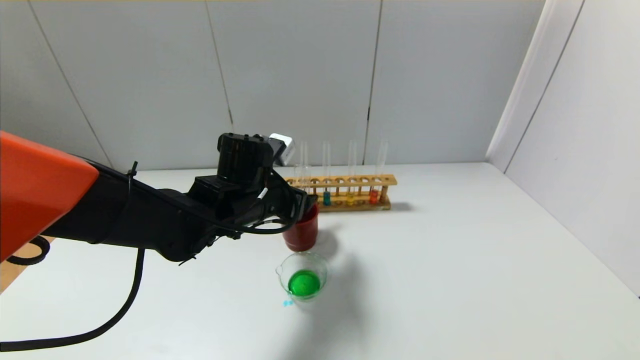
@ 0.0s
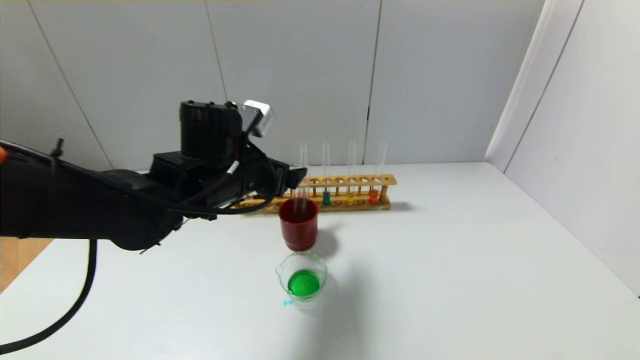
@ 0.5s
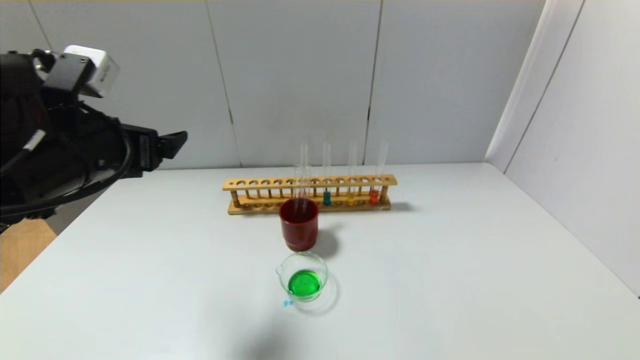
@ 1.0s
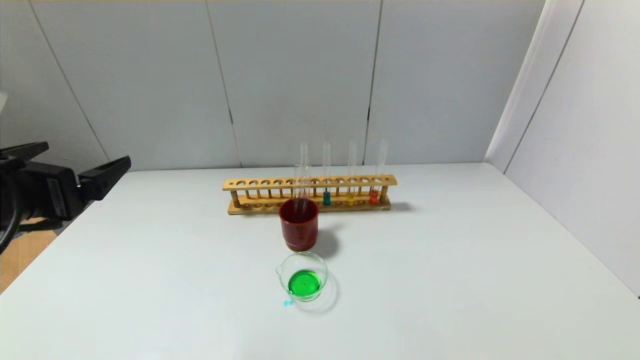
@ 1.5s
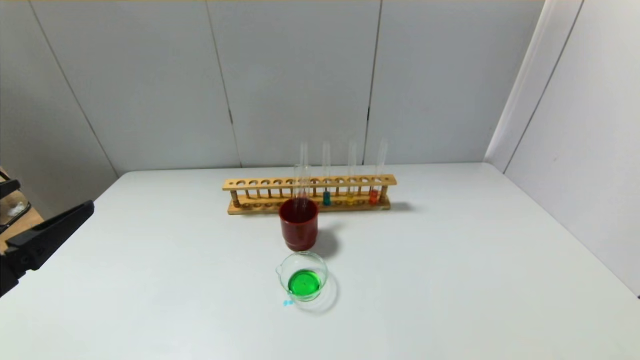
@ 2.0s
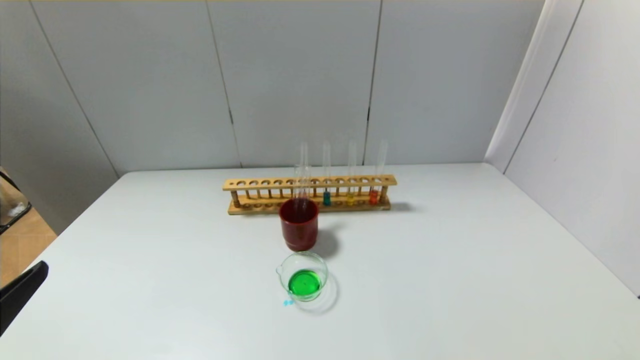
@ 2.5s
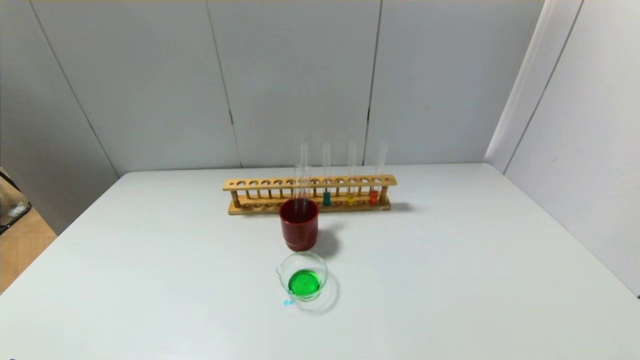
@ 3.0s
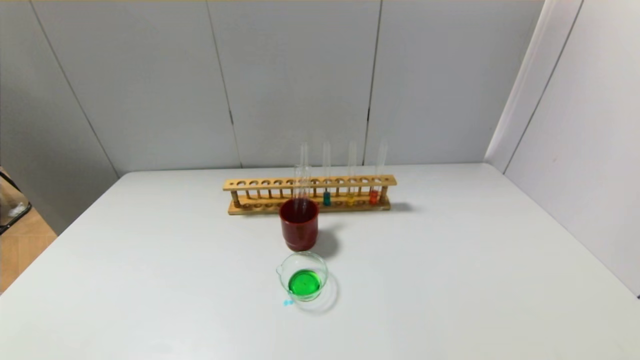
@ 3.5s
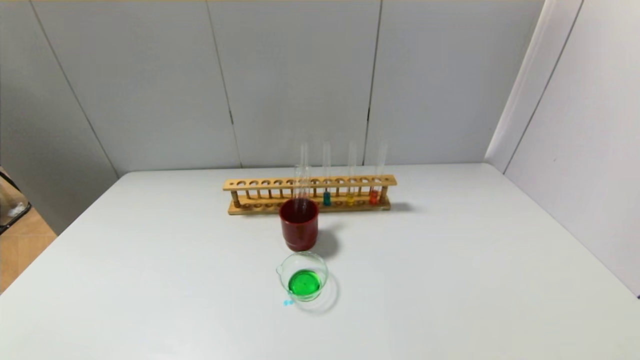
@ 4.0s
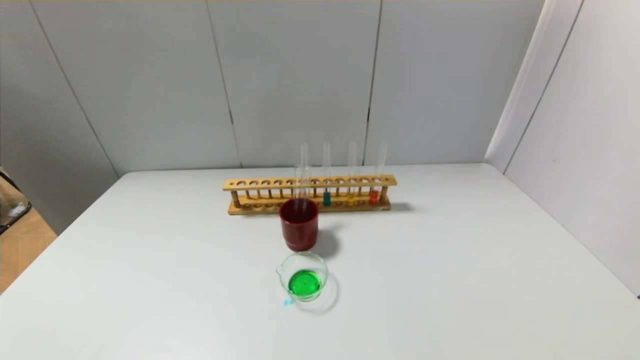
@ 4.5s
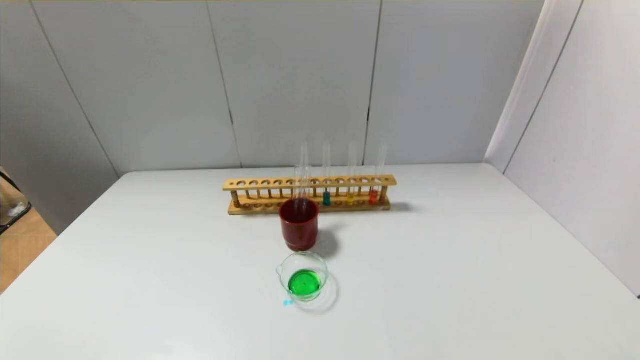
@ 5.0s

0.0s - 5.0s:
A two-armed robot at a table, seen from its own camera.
0.0s - 2.5s: The left gripper travels backward and to the left by roughly 35 cm.
2.5s - 5.0s: The left gripper heads downward, covering roughly 15 cm.

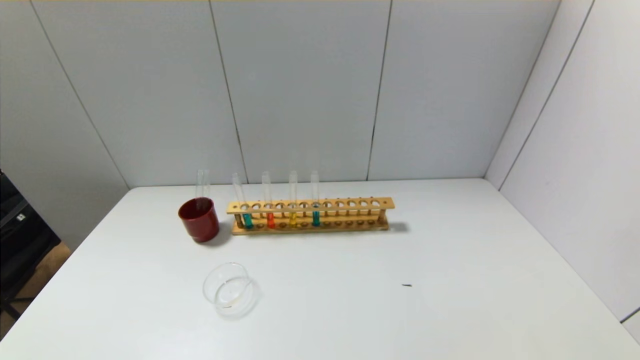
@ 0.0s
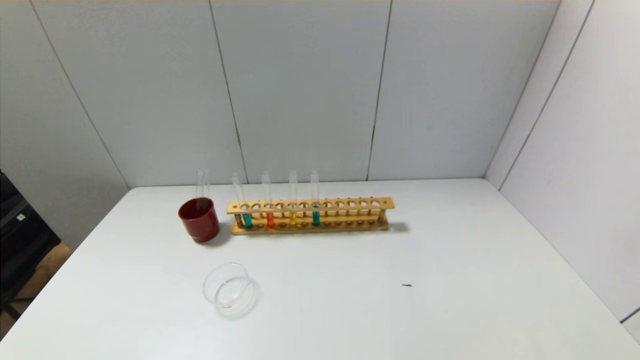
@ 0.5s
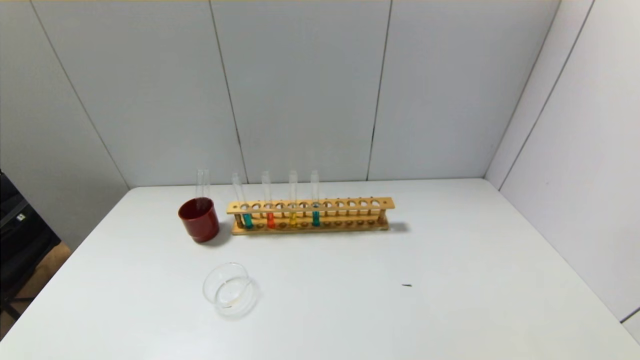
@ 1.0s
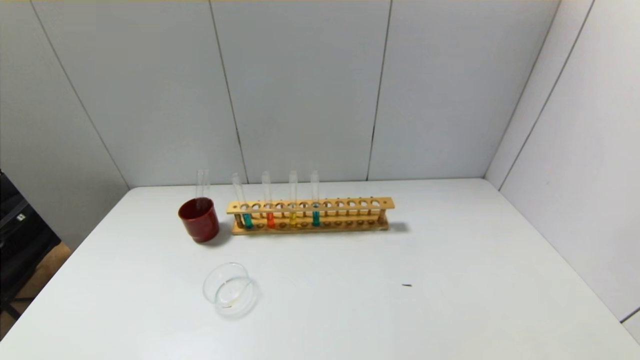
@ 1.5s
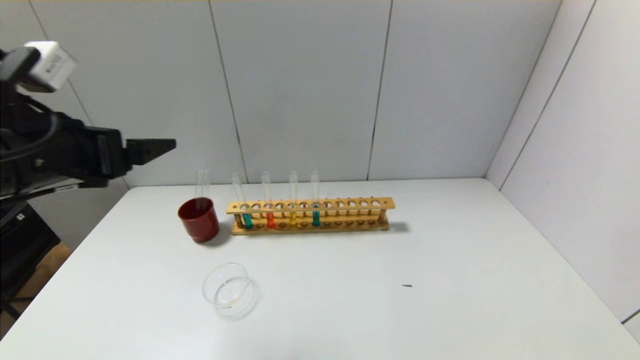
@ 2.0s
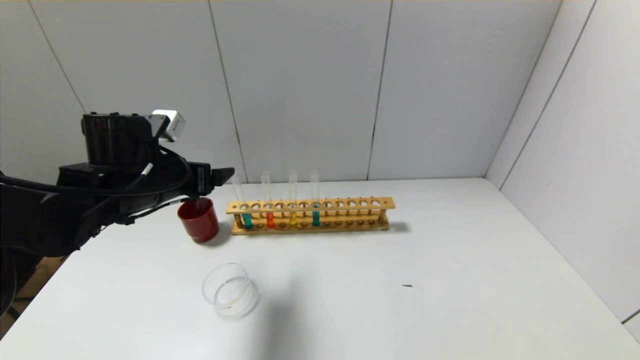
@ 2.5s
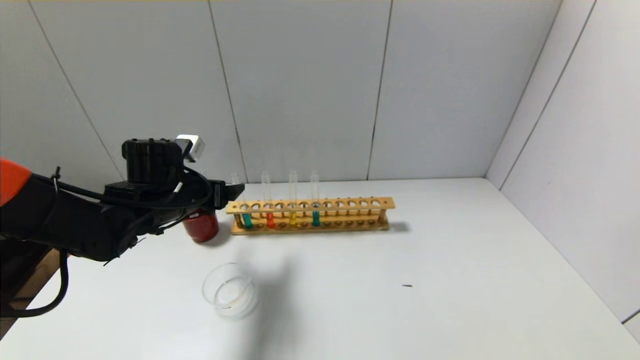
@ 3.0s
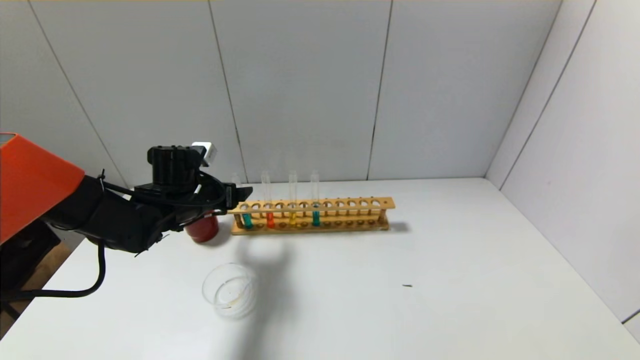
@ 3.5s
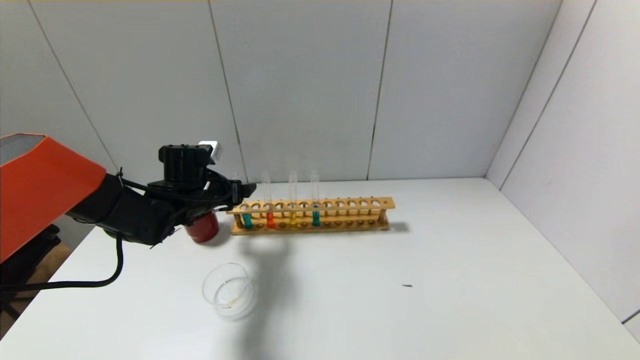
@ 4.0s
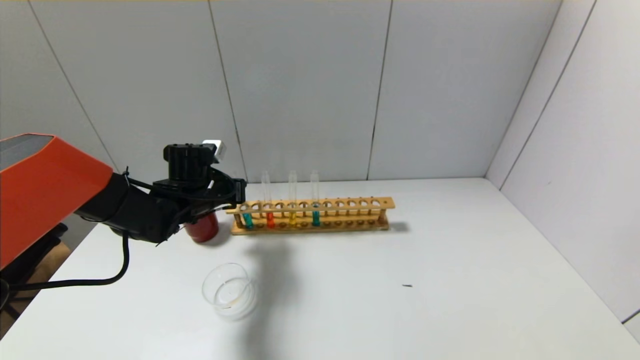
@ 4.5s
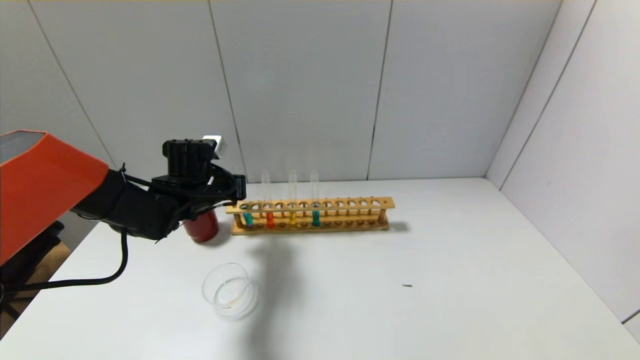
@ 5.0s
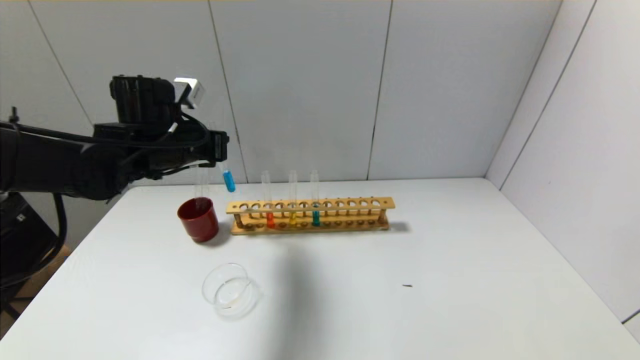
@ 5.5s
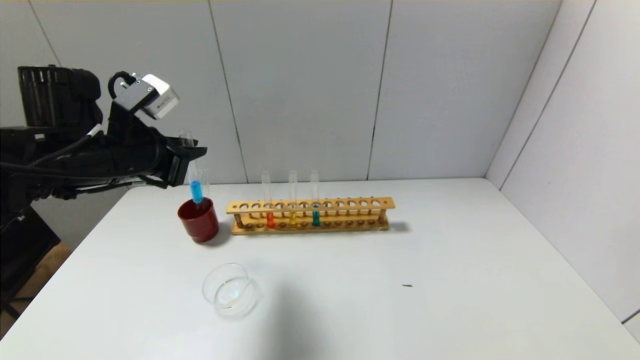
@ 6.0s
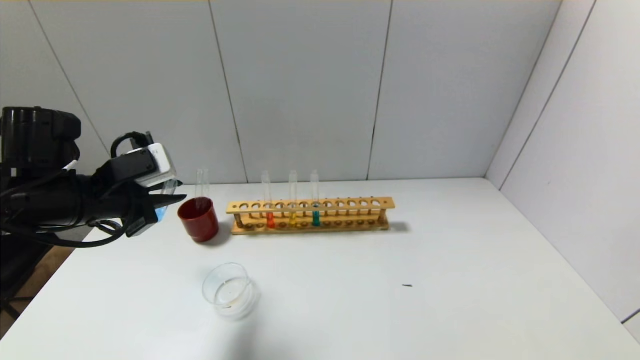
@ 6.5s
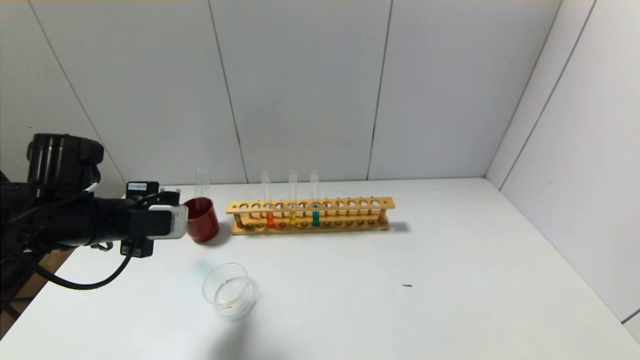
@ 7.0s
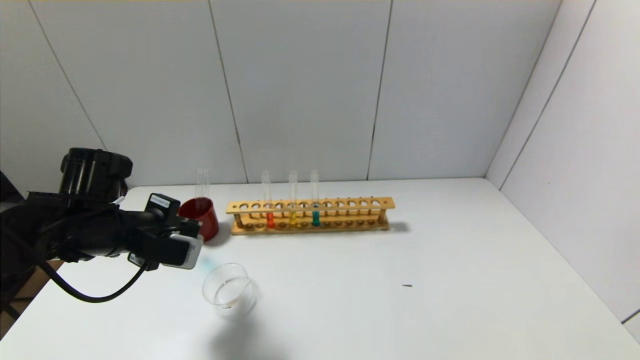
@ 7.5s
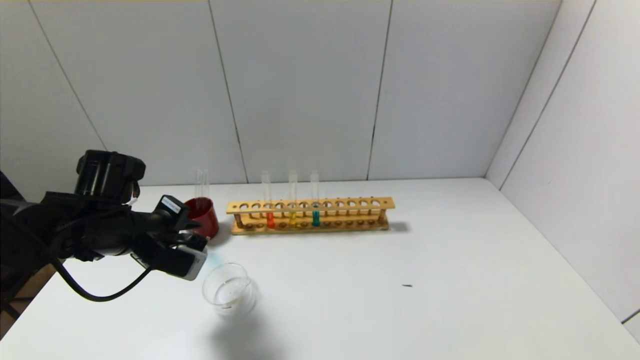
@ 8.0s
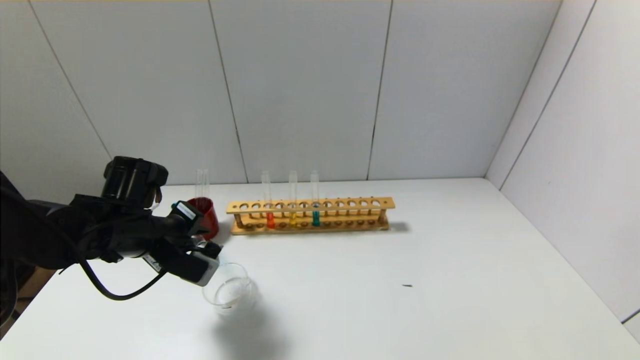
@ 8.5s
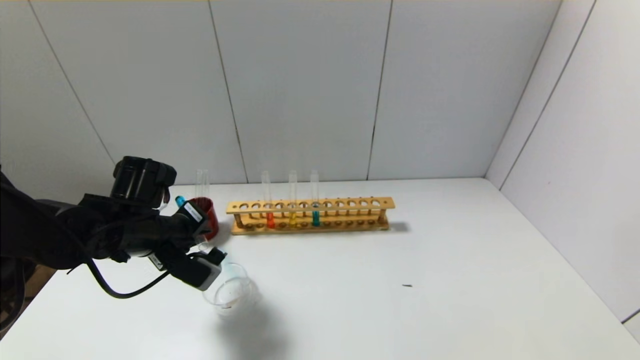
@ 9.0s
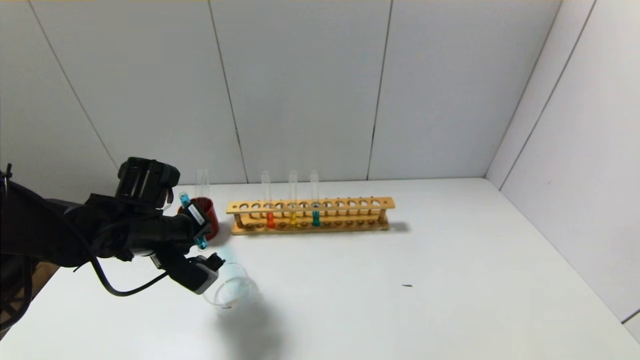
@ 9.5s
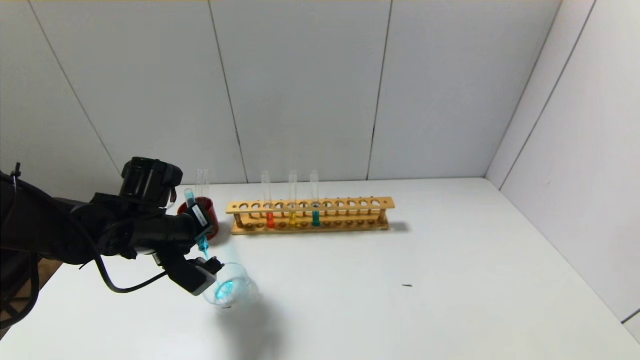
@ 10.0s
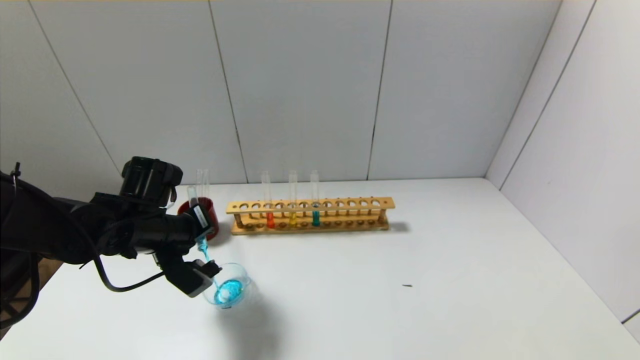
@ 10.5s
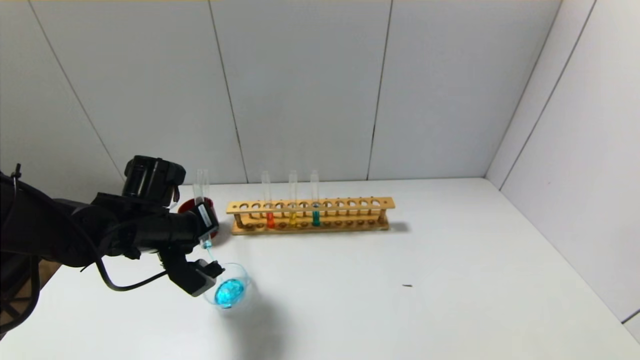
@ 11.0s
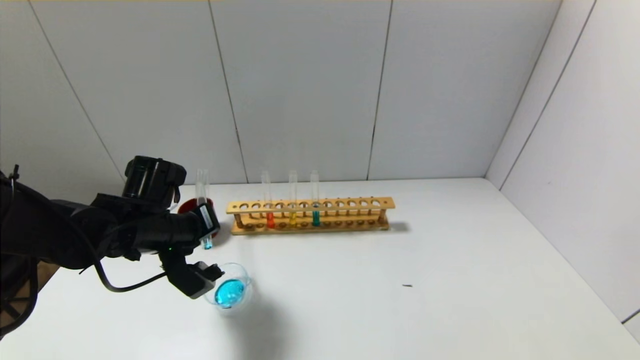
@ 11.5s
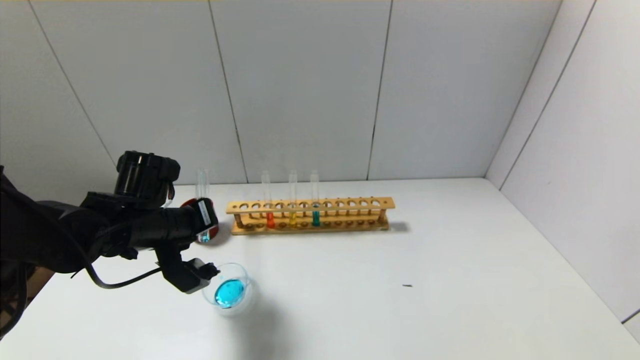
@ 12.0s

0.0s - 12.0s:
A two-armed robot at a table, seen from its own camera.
Step, 0.0s - 4.5s: Grasp the blue reagent with the left gripper.
0.0s - 2.0s: The left gripper is displaced forward and upward by roughly 30 cm.
2.0s - 4.0s: The left gripper travels forward and downward by roughly 25 cm.
4.0s - 6.0s: The left gripper goes about 15 cm upward and backward, and closes its fingers.
6.0s - 8.0s: The left gripper travels downward by some 10 cm.
10.0s - 12.0s: The grippers make only small movements.

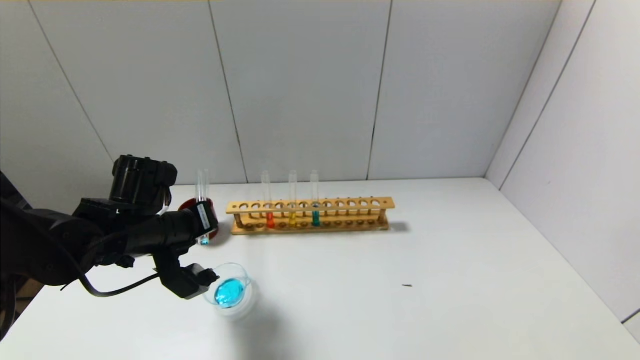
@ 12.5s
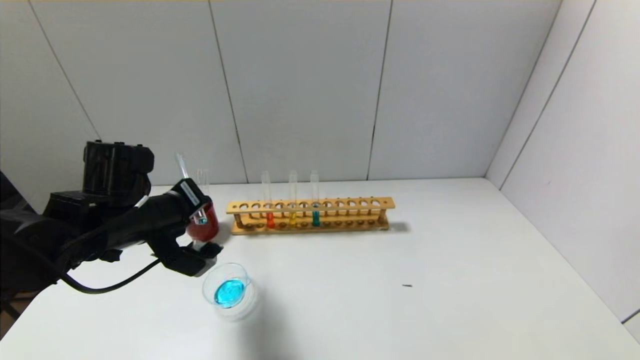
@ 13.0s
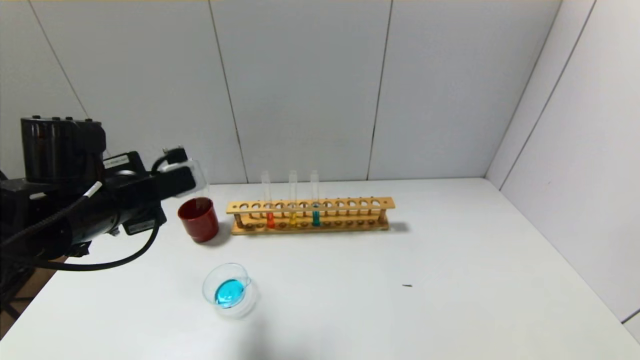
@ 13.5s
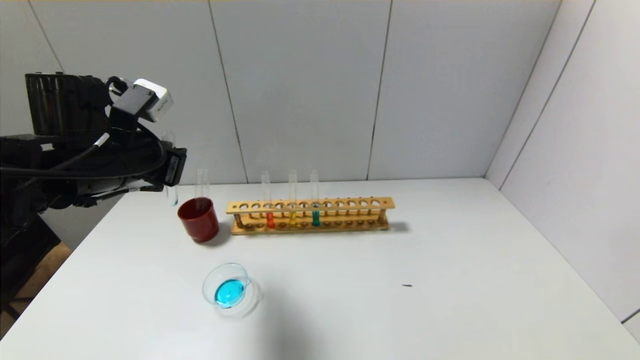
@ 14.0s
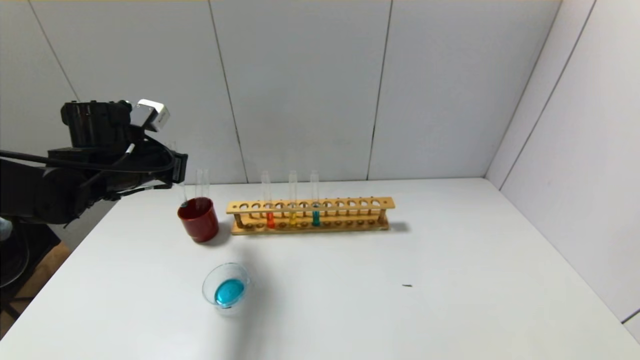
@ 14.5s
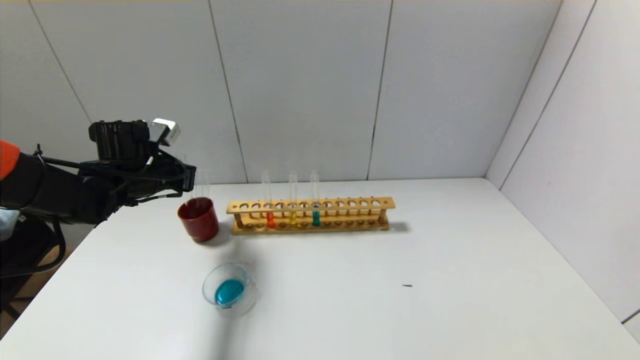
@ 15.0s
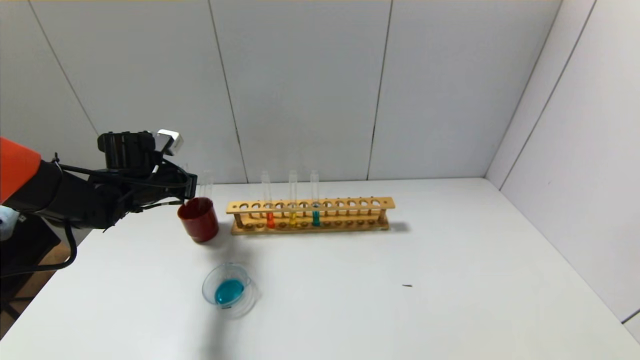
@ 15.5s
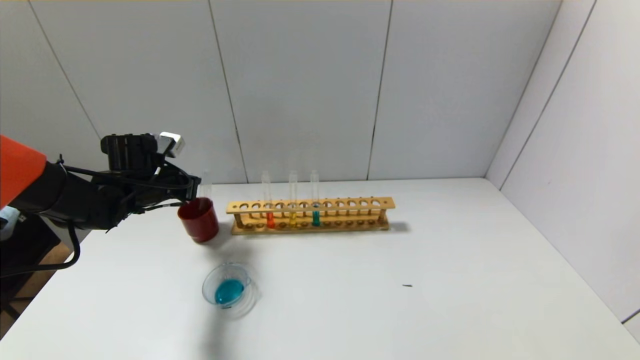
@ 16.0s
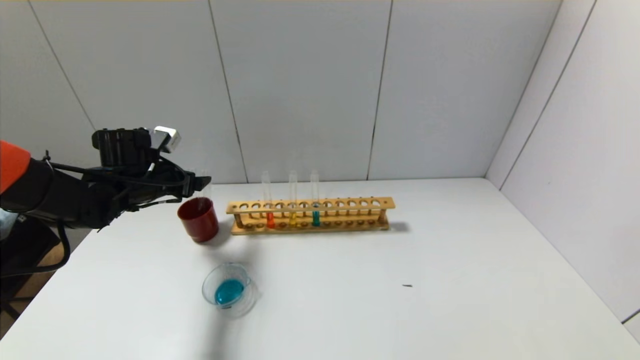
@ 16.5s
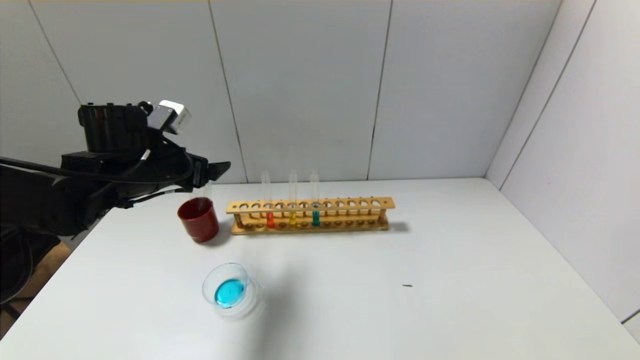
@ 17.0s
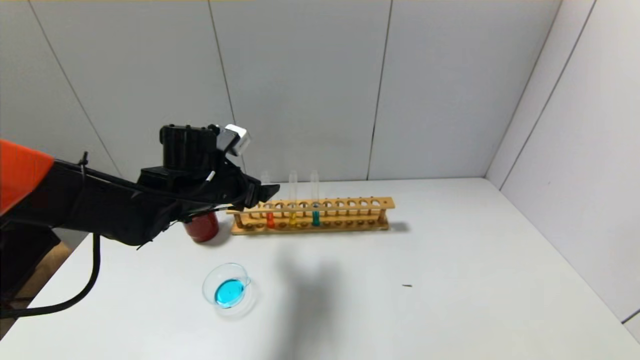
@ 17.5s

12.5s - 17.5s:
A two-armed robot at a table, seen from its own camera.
Step, 13.5s - 16.0s: Place the test tube into the brown cup with the left gripper.
12.5s - 15.0s: The left gripper goes approximately 10 cm forward and to the left.
15.0s - 17.5s: The left gripper shifts approximately 10 cm to the right, and opens.
